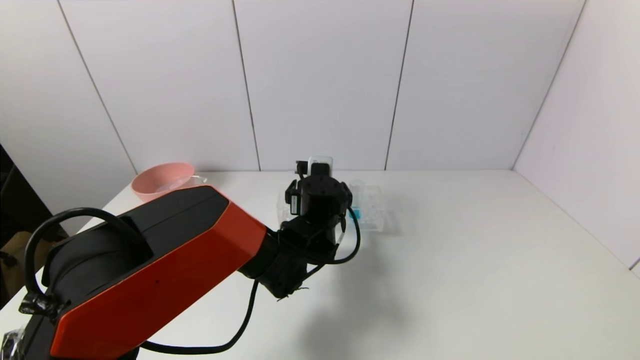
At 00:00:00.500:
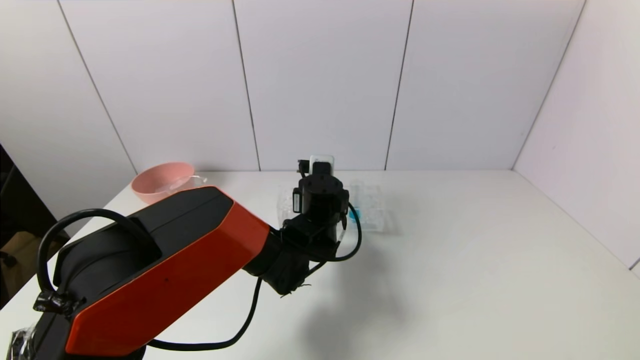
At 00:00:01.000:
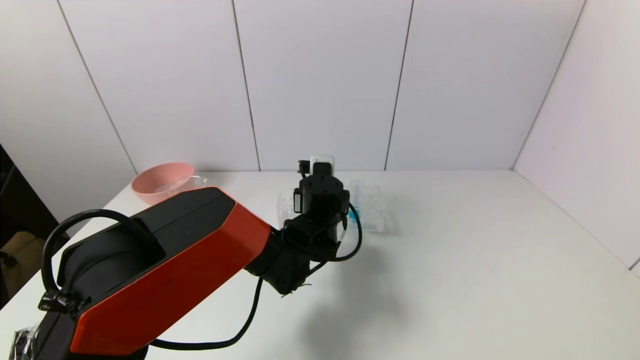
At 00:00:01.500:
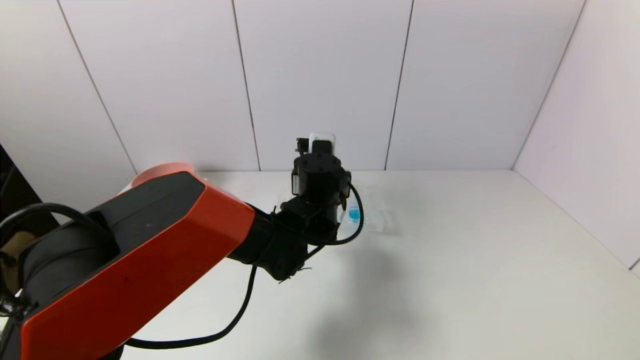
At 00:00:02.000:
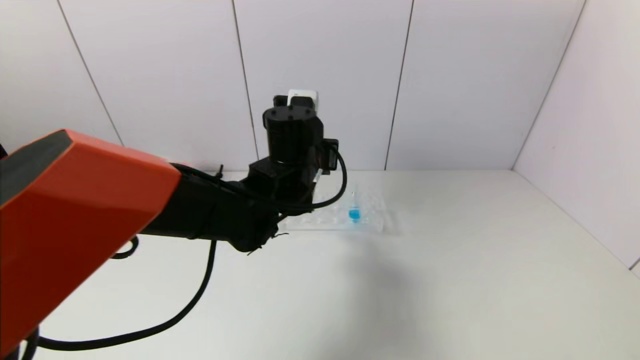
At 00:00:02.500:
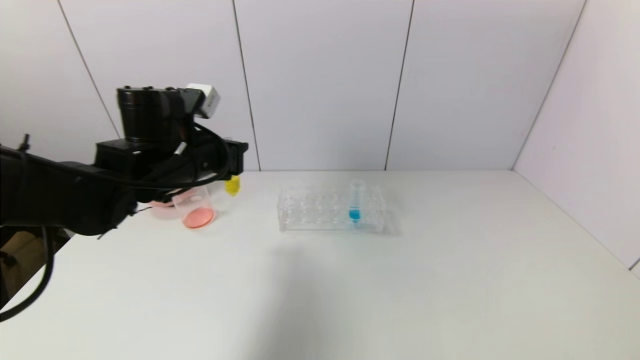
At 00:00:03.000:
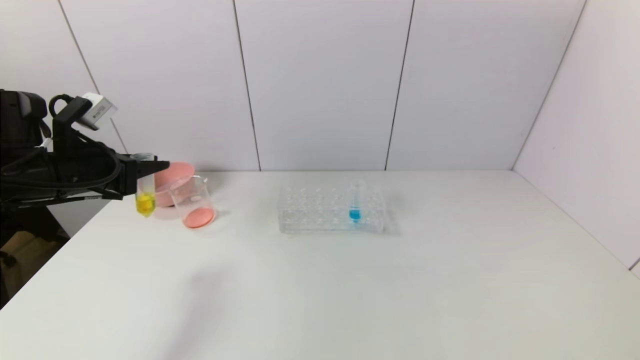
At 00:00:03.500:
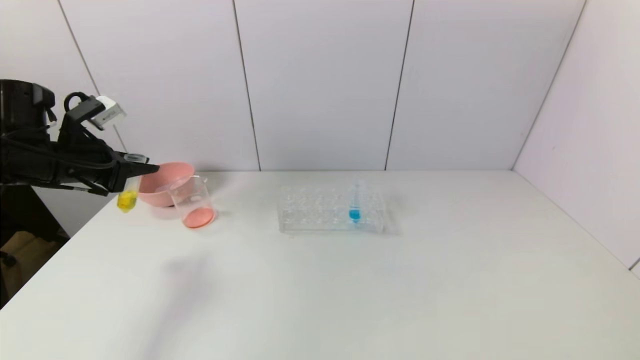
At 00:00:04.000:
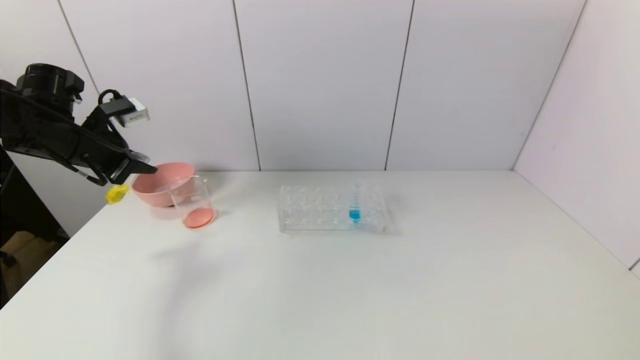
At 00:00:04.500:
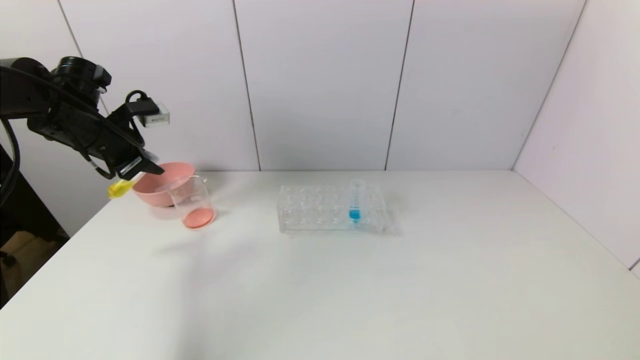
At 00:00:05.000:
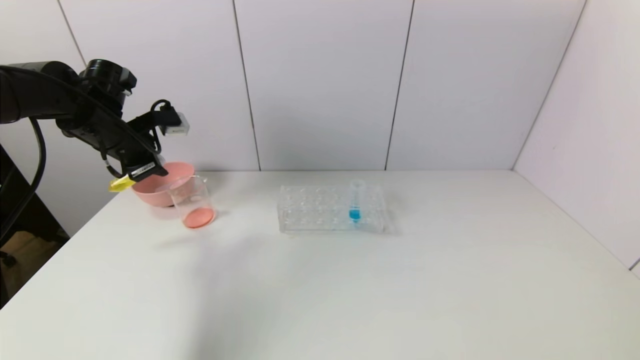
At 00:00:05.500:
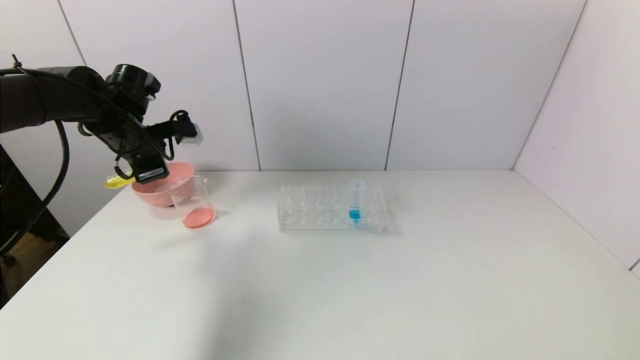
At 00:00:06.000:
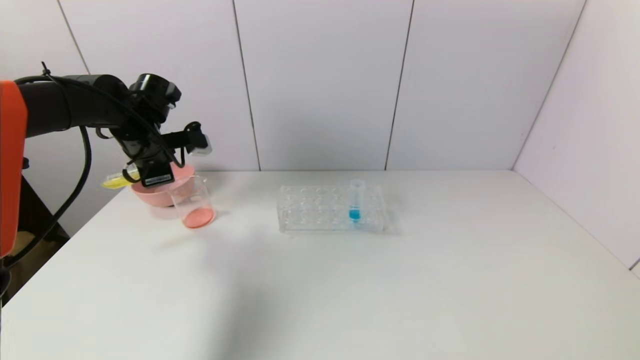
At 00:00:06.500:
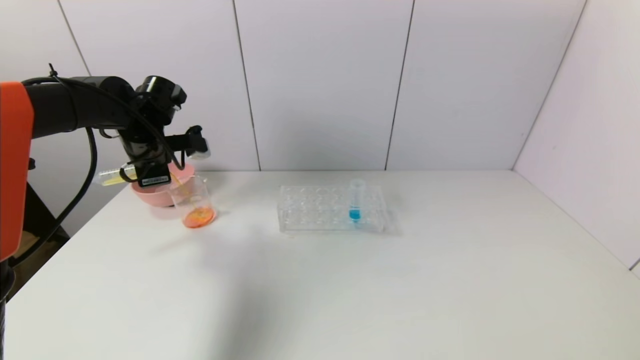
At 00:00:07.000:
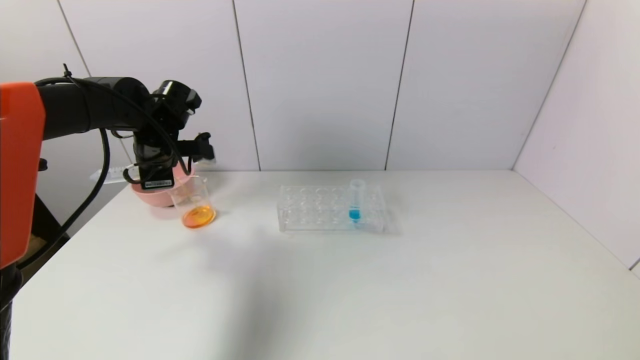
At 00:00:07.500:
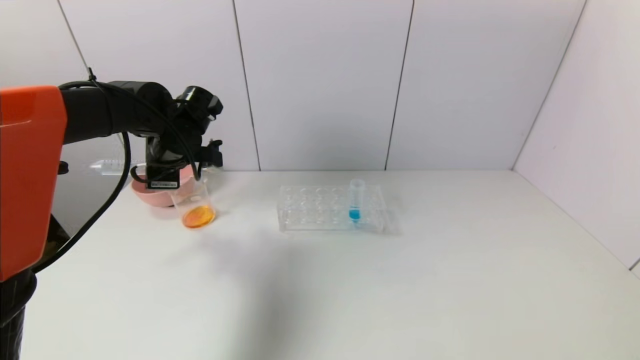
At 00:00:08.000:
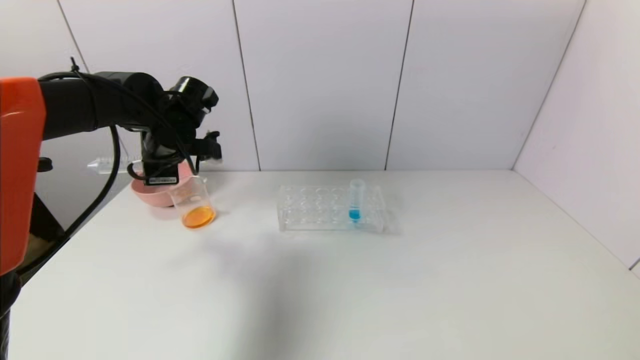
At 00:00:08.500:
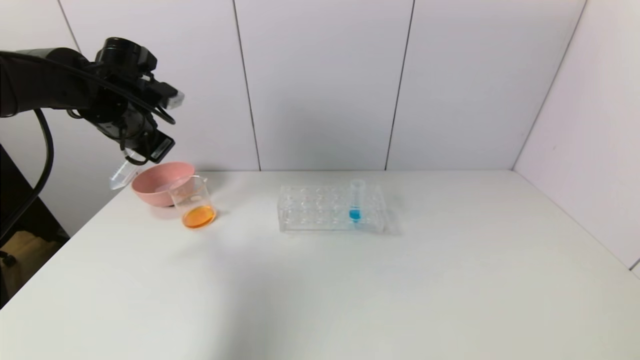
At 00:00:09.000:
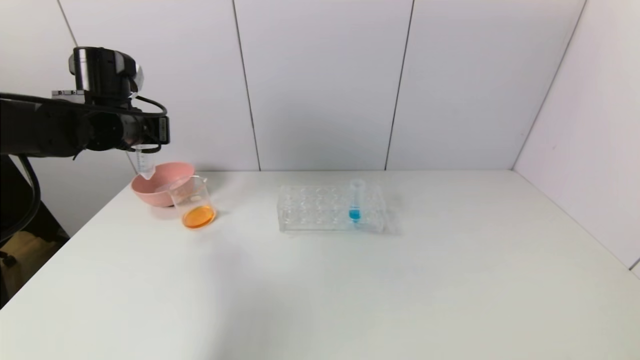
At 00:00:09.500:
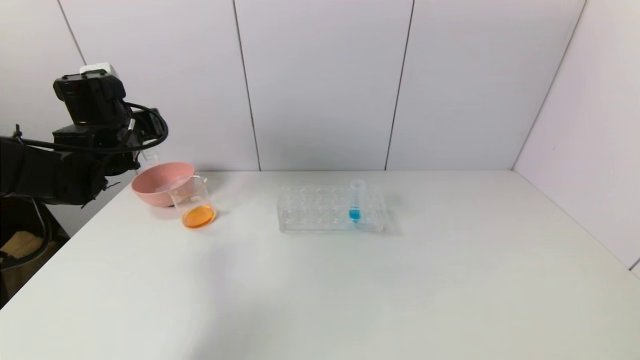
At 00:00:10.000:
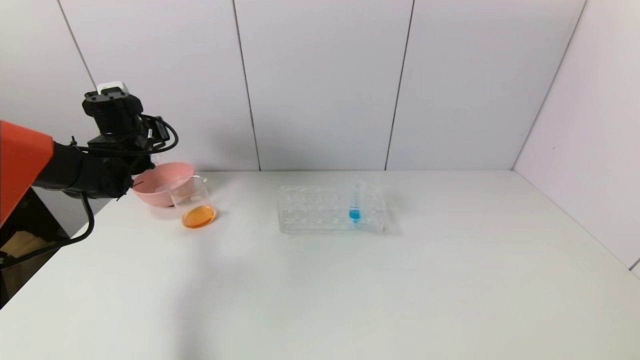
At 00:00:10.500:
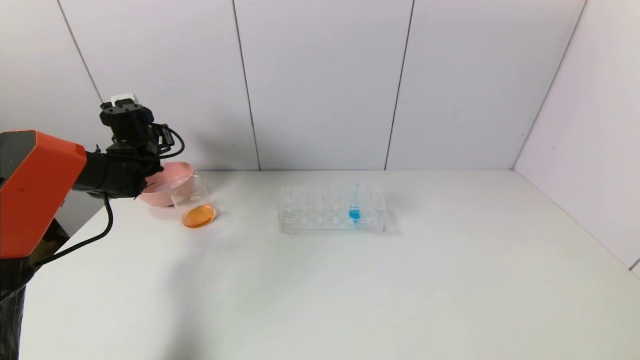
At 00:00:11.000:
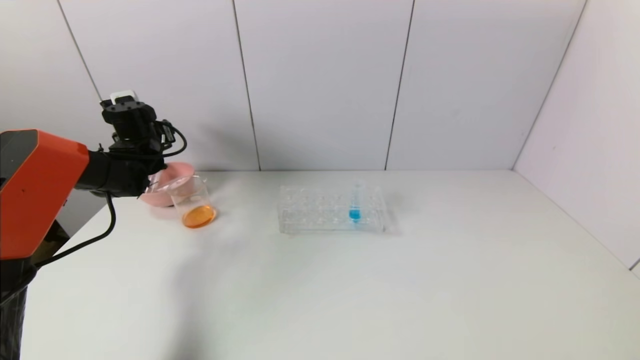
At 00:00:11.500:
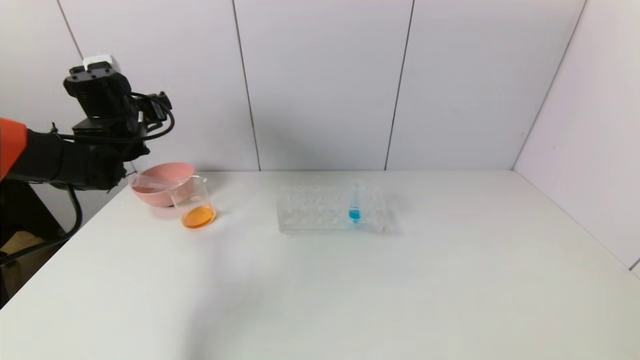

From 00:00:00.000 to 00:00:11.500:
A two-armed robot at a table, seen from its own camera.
Task of the whole recording: pick up the test tube with yellow pigment and the test tube with red pigment by grippers and pour them into the beaker.
Step, from 00:00:01.000 to 00:00:07.500: Pour the yellow reagent into the graduated cylinder with the left gripper.
Step, from 00:00:08.000 to 00:00:11.000: Place the test tube into the pink bowl with the left gripper.
From 00:00:00.000 to 00:00:02.000: The left gripper is displaced upward by some 10 cm, and closes up.
From 00:00:02.000 to 00:00:04.000: The left gripper is displaced to the left by about 35 cm.
From 00:00:04.000 to 00:00:06.000: The left gripper heads to the right, covering roughly 10 cm.
From 00:00:06.000 to 00:00:07.500: The left gripper is displaced to the right by approximately 5 cm.
From 00:00:07.500 to 00:00:09.500: The left gripper shifts roughly 5 cm to the left.
From 00:00:09.500 to 00:00:11.500: The left gripper opens.

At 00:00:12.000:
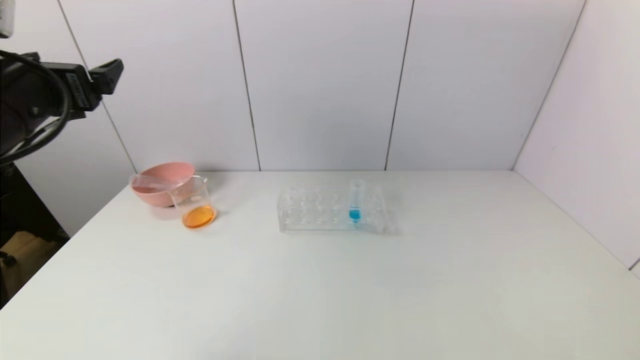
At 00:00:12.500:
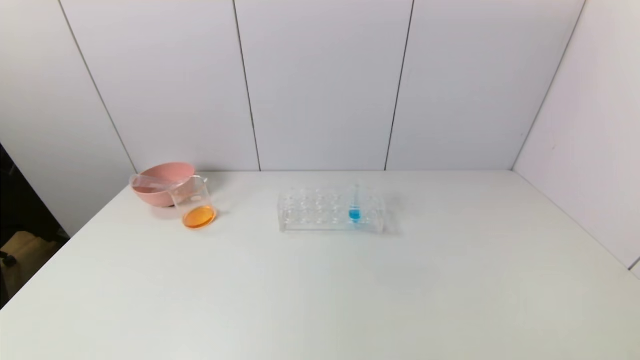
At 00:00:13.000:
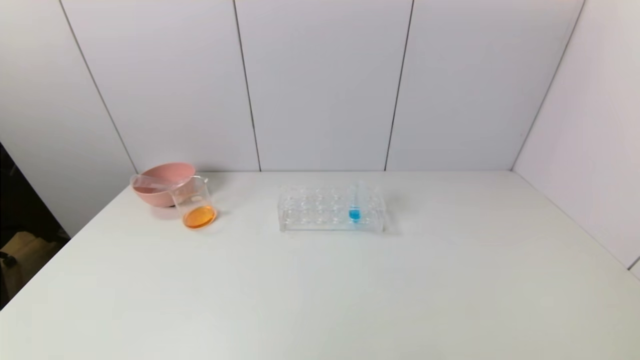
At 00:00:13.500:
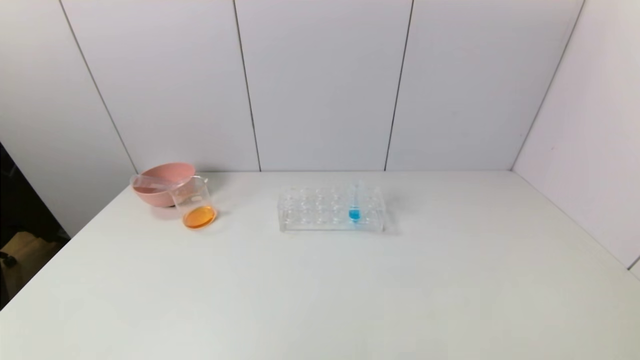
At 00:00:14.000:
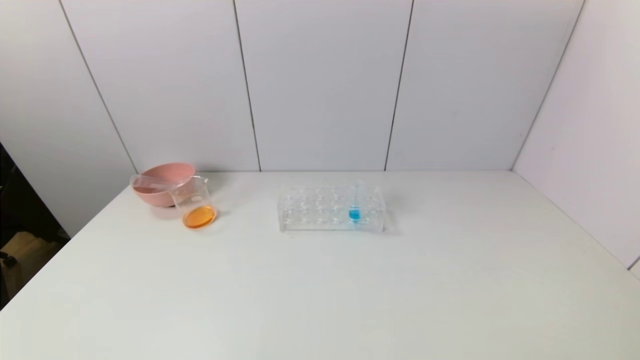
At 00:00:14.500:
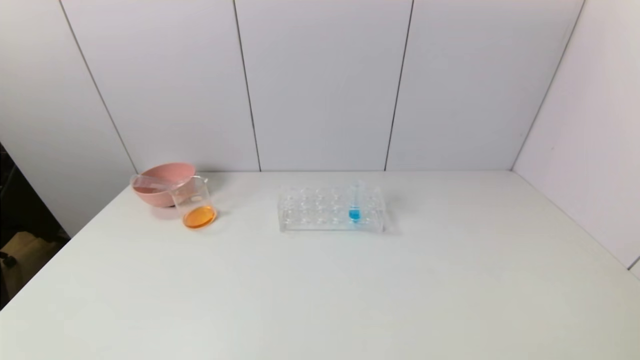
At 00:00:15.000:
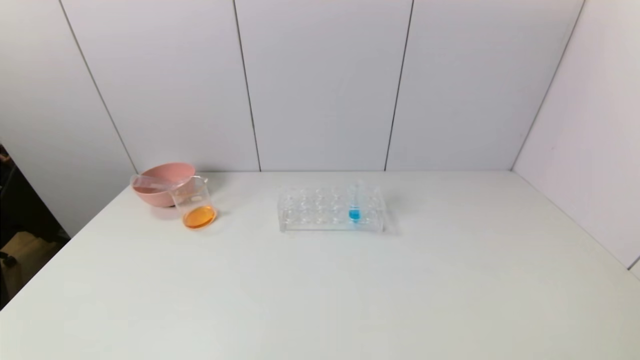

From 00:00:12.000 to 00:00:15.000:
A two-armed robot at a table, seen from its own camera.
Task of the whole recording: pick up the test tube with yellow pigment and the test tube with red pigment by grippers and pour them into the beaker.
From 00:00:12.000 to 00:00:13.500: The left gripper moves backward and downward, roughly 35 cm.
